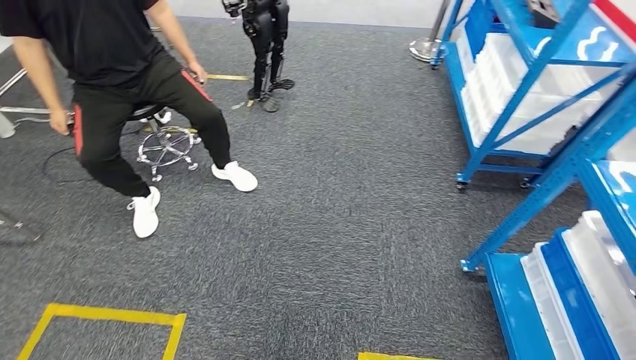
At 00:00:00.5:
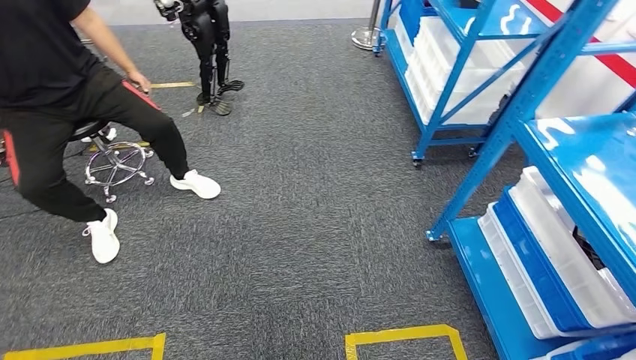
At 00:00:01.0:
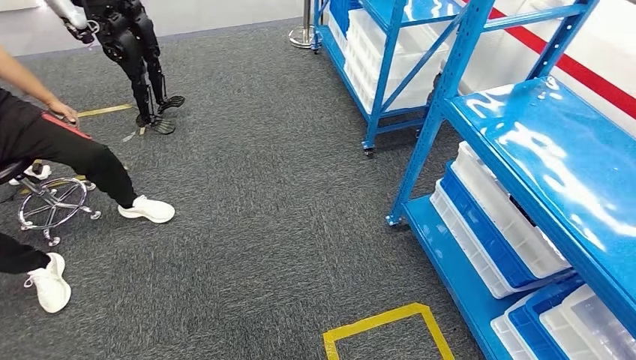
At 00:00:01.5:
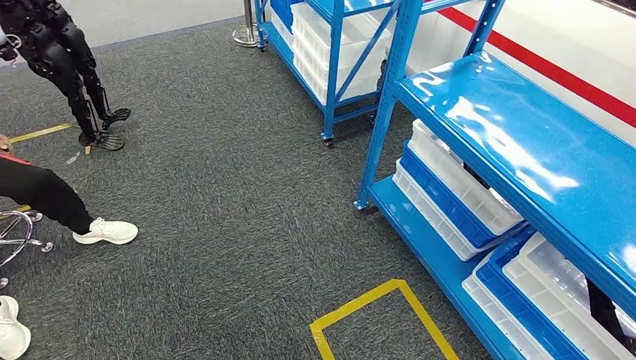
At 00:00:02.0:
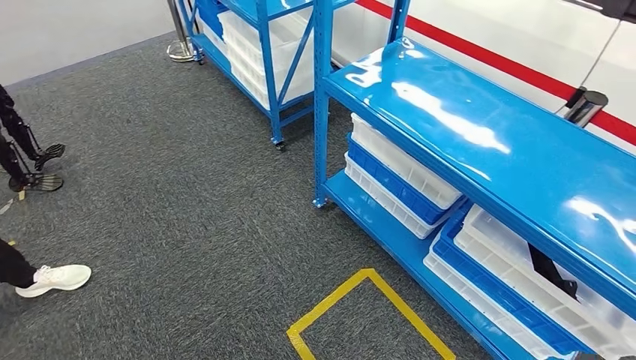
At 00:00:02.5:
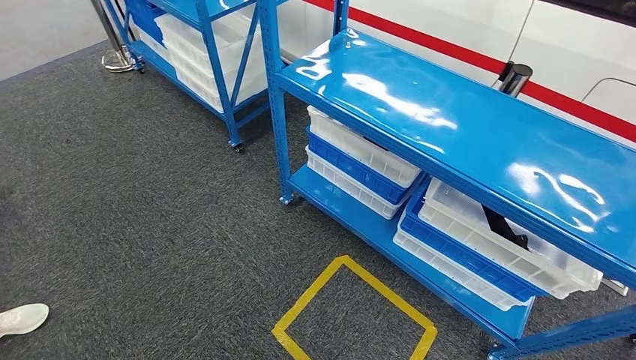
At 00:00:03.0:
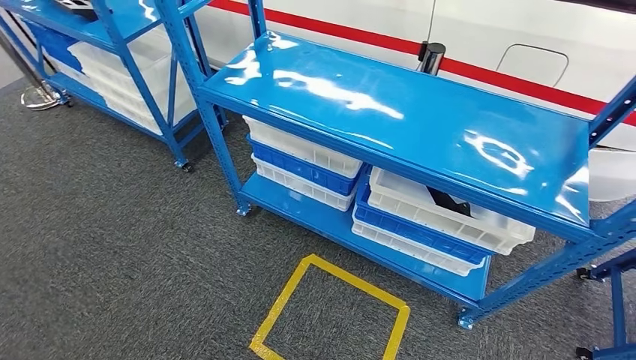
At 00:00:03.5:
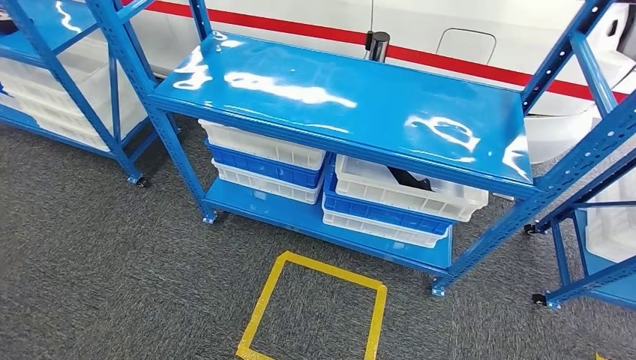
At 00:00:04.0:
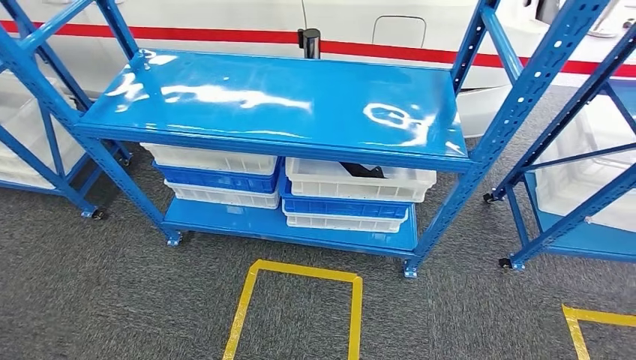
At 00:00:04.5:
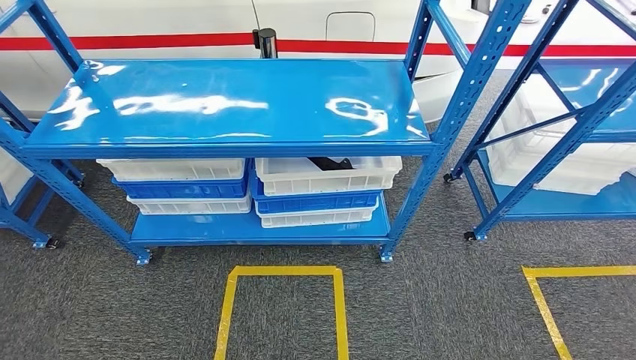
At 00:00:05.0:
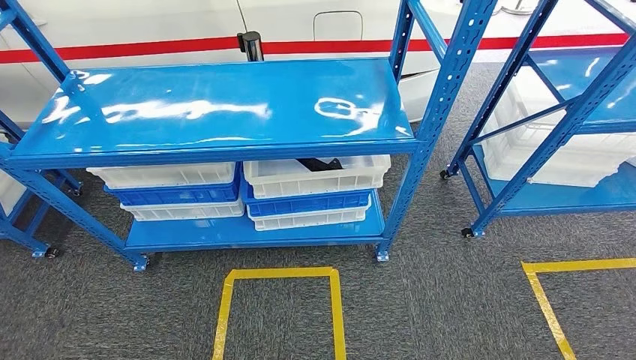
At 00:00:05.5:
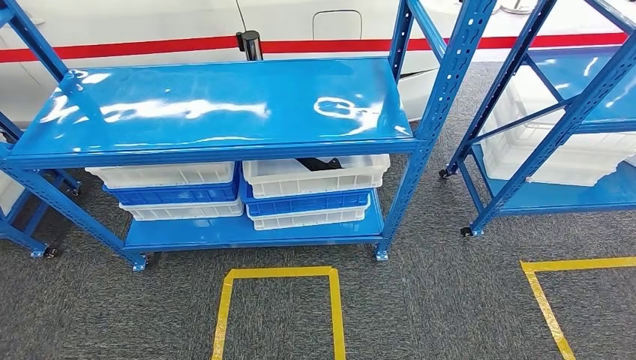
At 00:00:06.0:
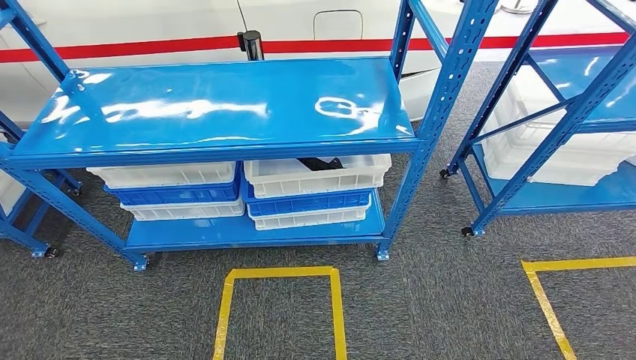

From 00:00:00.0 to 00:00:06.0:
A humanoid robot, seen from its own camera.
Step, from 00:00:00.0 to 00:00:06.0: Return to the initial position at the shelf.

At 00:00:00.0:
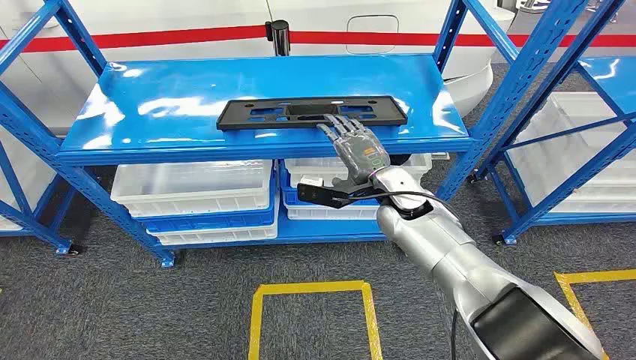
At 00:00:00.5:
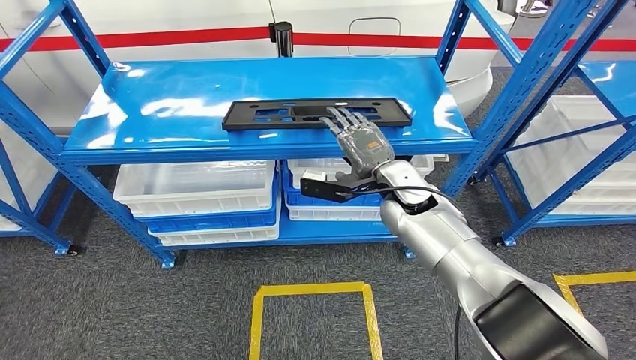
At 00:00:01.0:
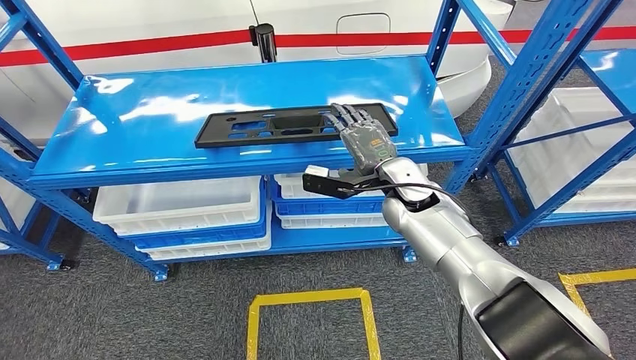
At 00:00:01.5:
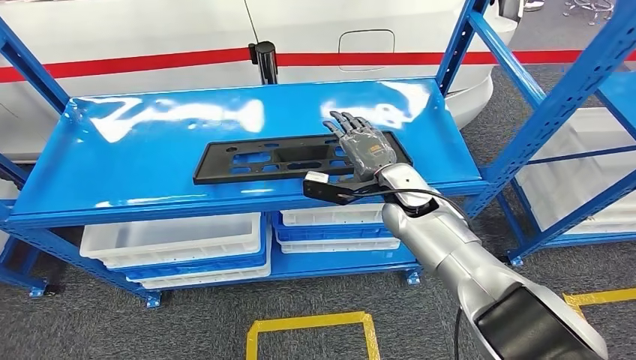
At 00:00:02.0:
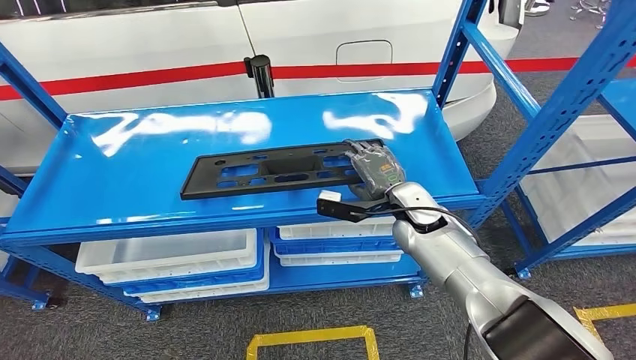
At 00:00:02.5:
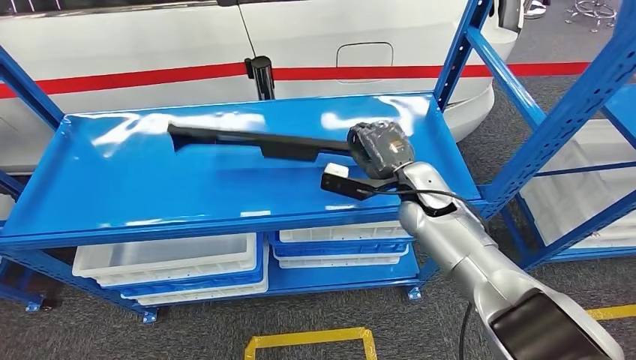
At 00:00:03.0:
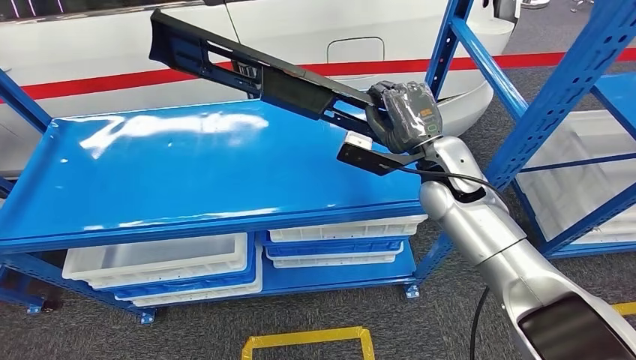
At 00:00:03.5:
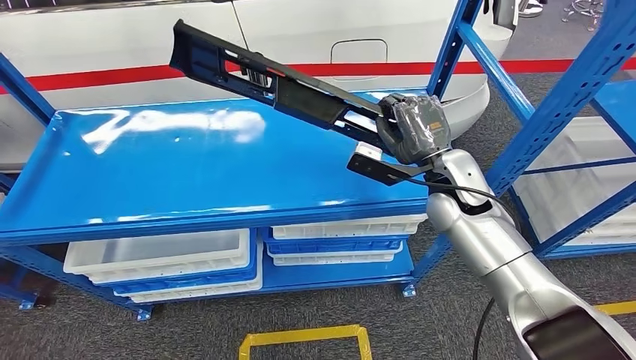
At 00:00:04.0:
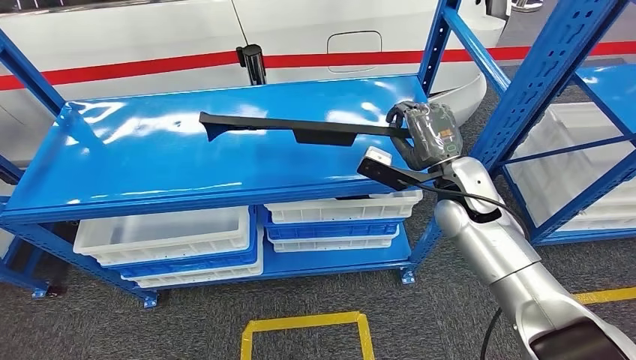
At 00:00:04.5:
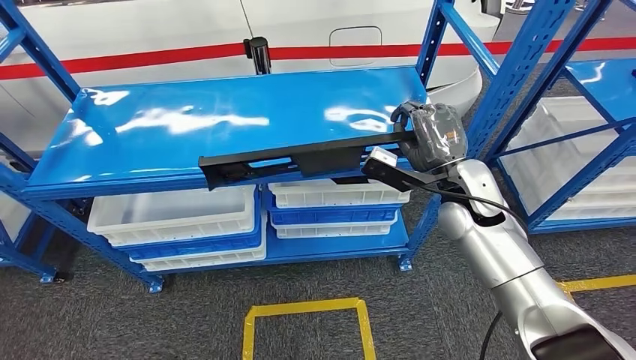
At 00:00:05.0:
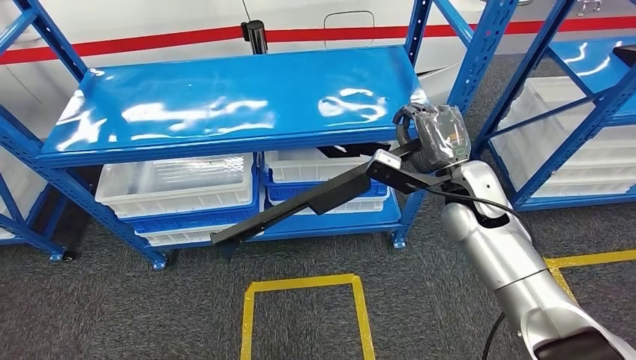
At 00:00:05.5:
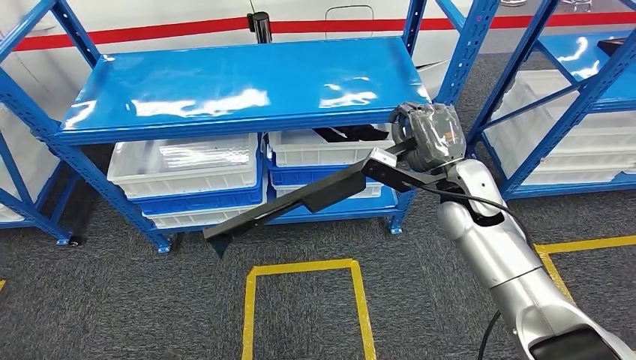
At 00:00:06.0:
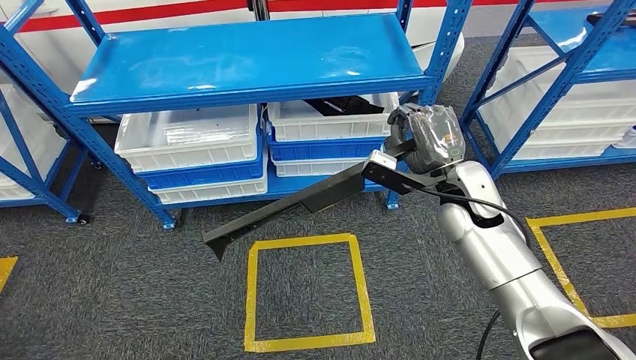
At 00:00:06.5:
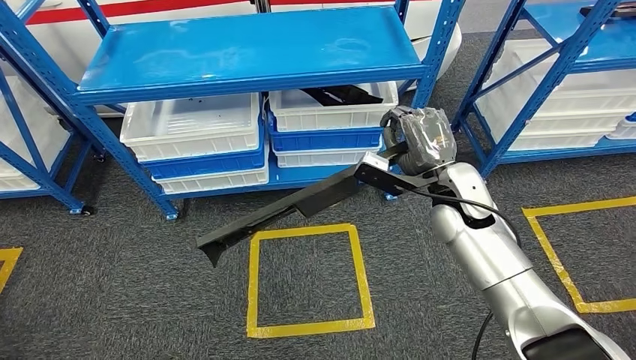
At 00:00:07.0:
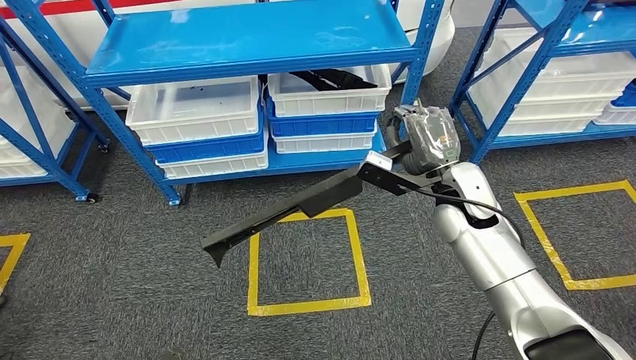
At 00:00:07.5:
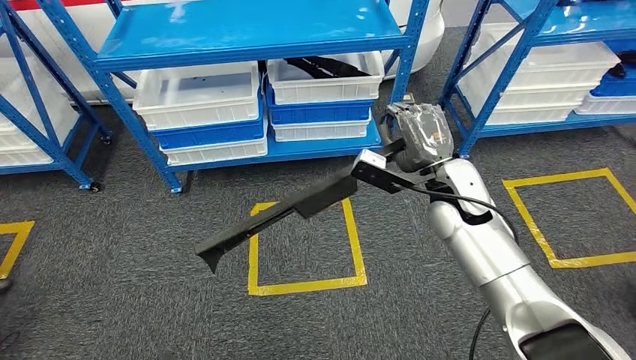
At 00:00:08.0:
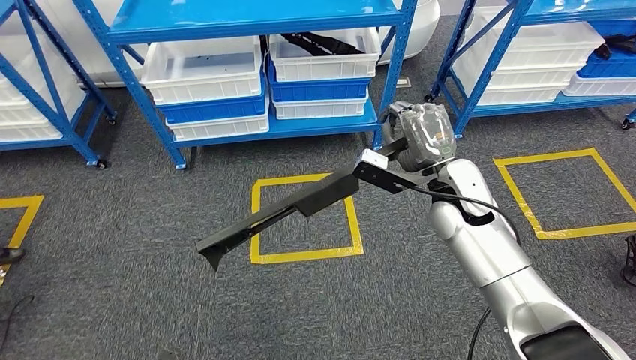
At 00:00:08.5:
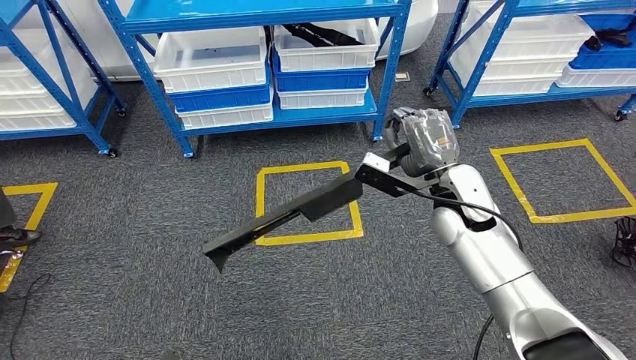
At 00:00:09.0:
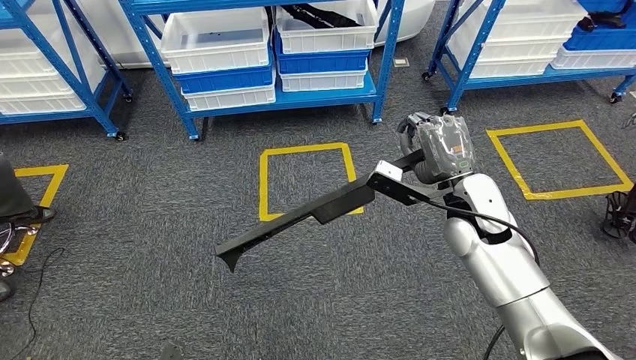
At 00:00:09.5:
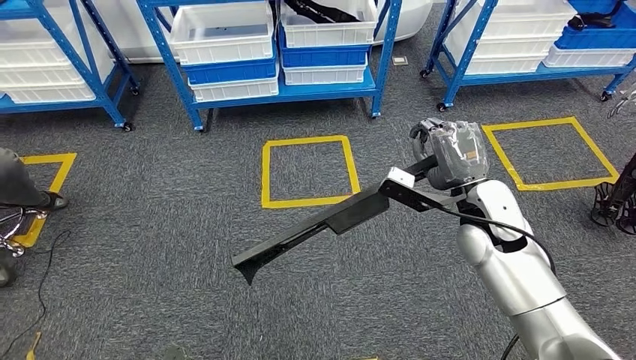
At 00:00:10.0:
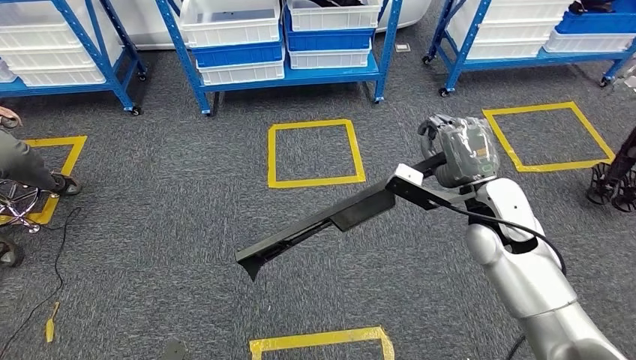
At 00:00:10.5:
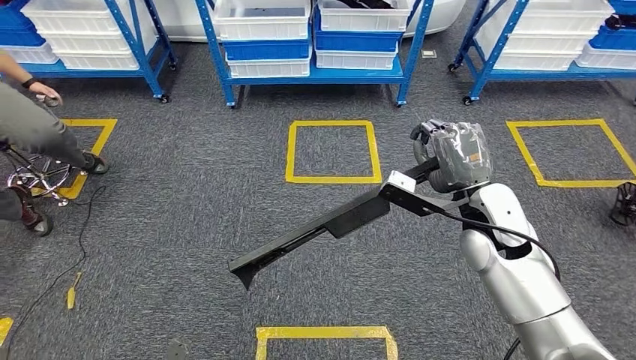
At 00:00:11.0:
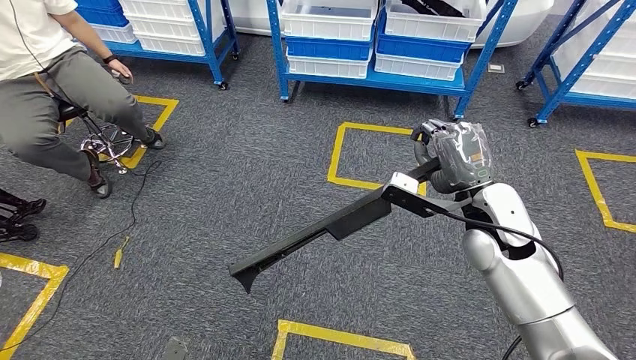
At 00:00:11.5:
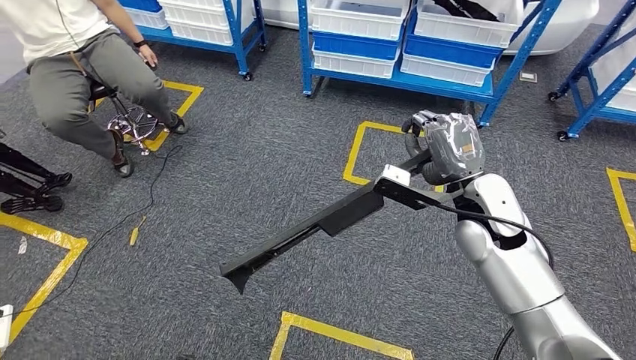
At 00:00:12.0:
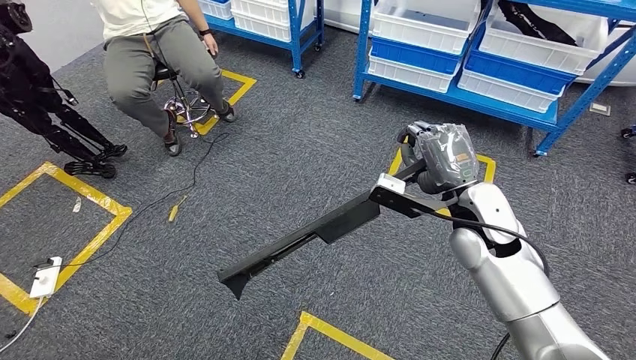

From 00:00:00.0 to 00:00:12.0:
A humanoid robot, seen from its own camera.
Step, from 00:00:00.0 to 00:00:04.5: Pick up the large material from the shelf.

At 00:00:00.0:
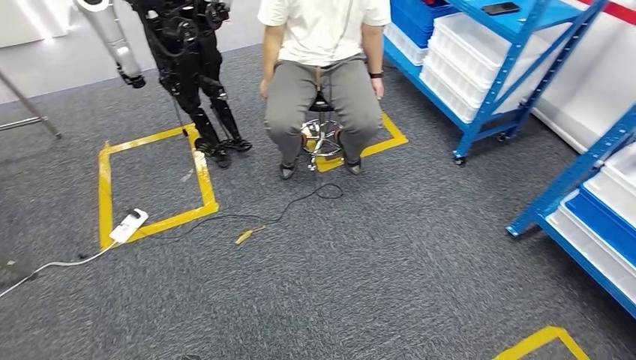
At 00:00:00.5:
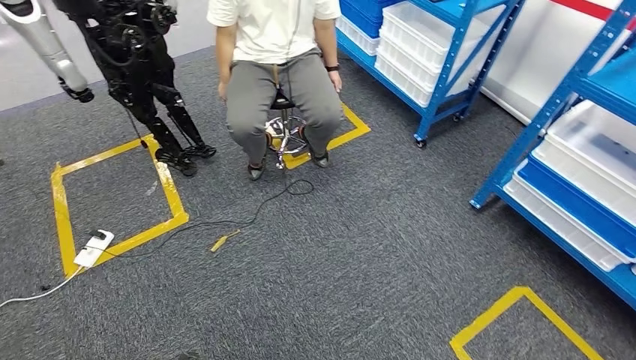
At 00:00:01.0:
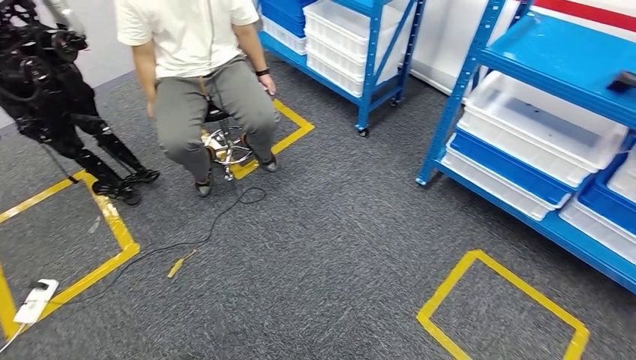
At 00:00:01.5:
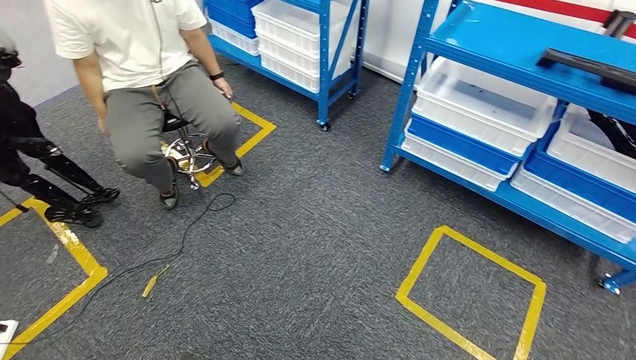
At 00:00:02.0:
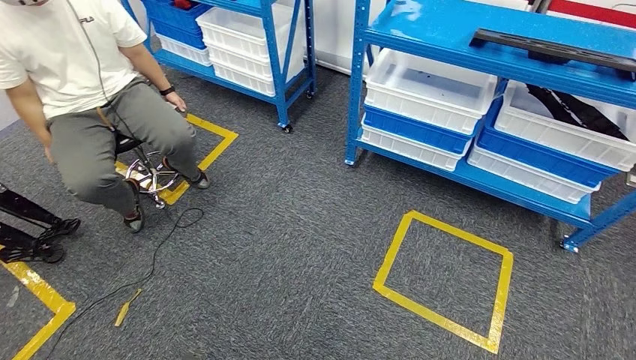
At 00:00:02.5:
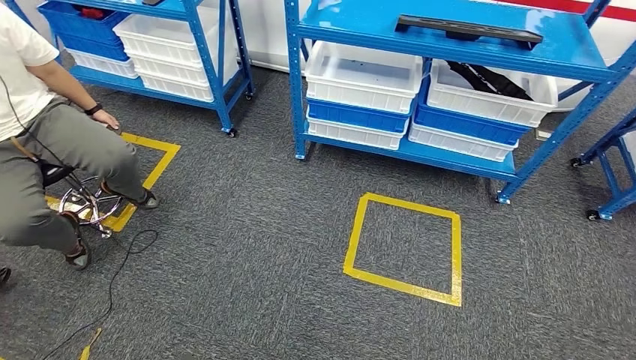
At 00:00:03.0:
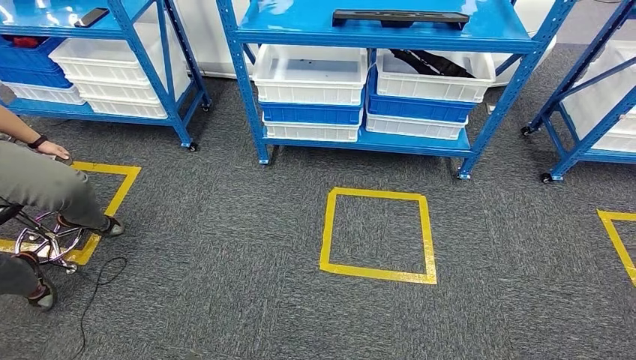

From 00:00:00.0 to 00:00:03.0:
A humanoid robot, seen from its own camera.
Step, from 00:00:00.0 to 00:00:03.0: Return to the initial position at the shelf.
